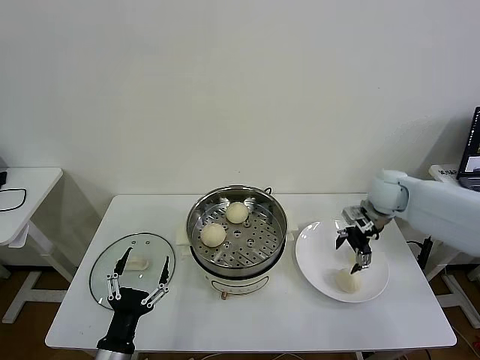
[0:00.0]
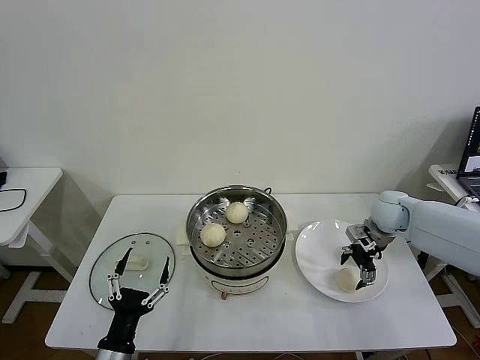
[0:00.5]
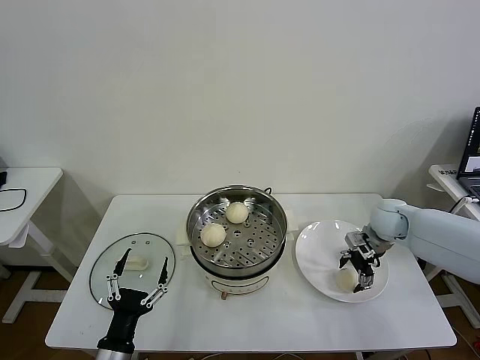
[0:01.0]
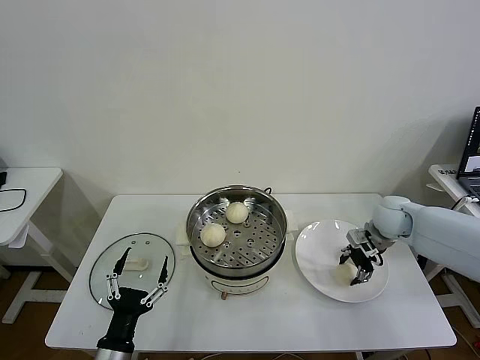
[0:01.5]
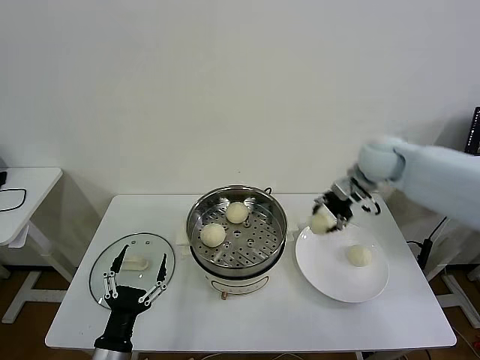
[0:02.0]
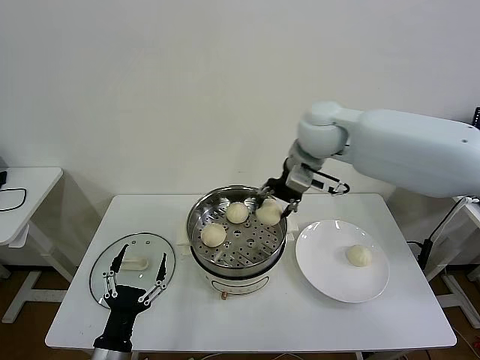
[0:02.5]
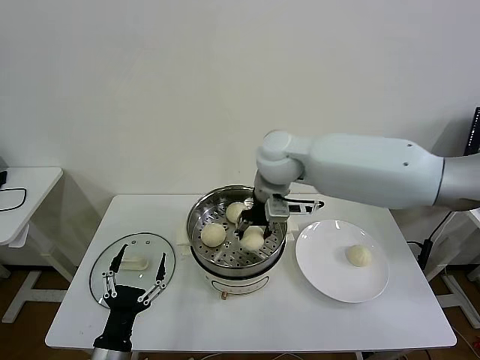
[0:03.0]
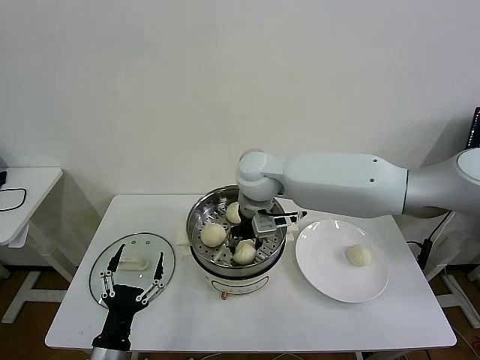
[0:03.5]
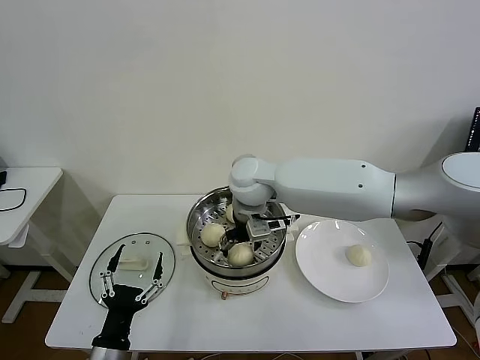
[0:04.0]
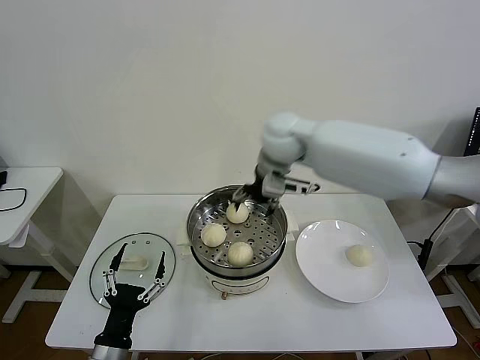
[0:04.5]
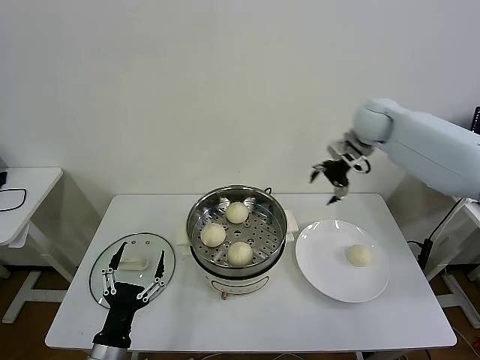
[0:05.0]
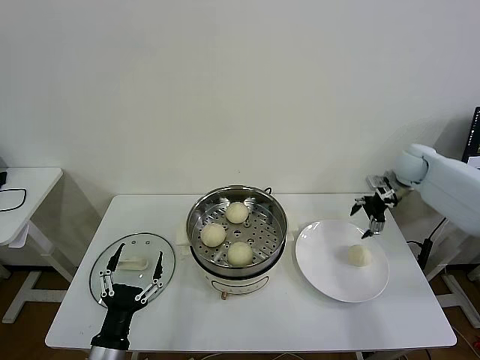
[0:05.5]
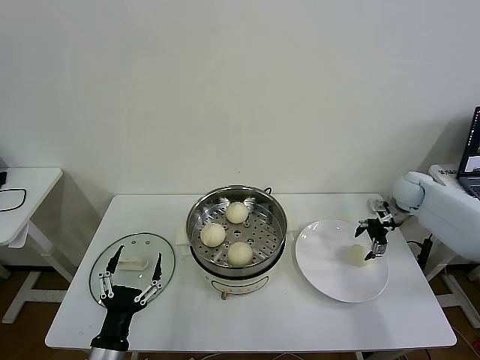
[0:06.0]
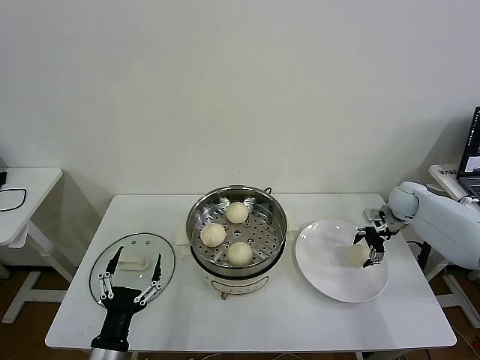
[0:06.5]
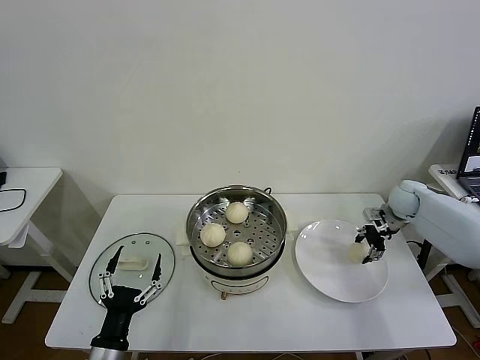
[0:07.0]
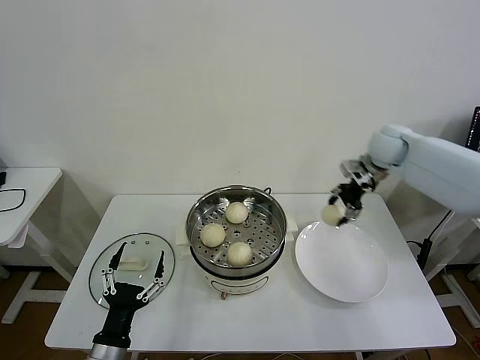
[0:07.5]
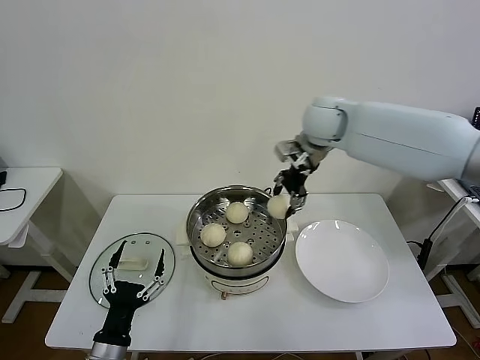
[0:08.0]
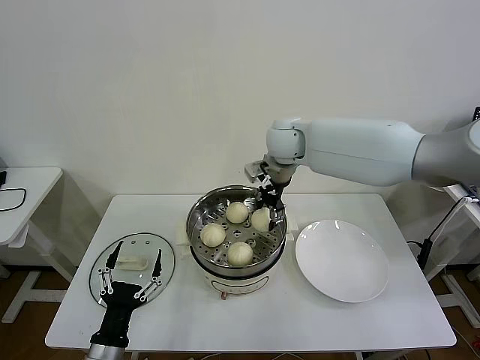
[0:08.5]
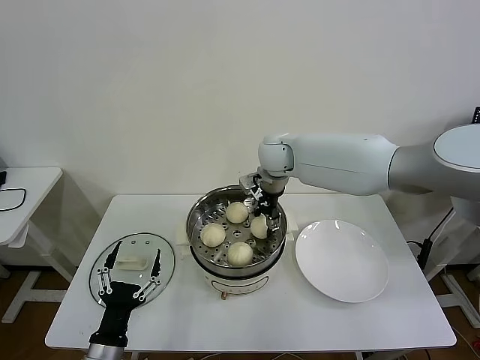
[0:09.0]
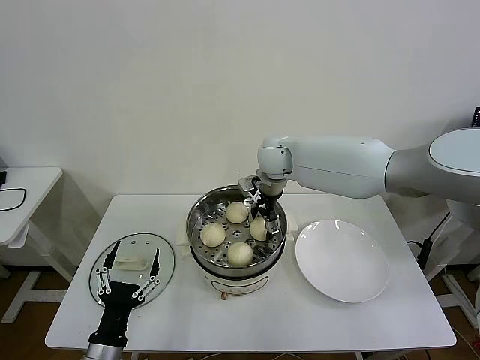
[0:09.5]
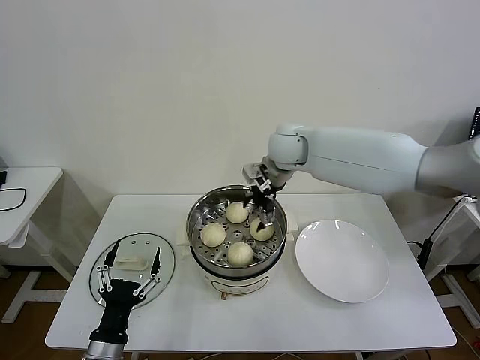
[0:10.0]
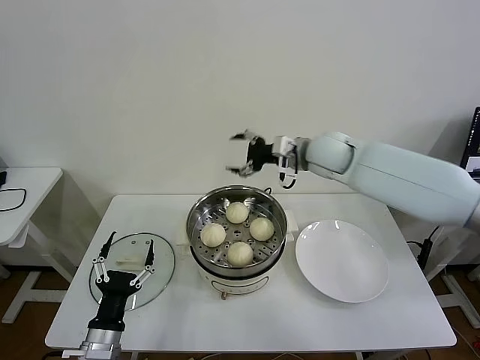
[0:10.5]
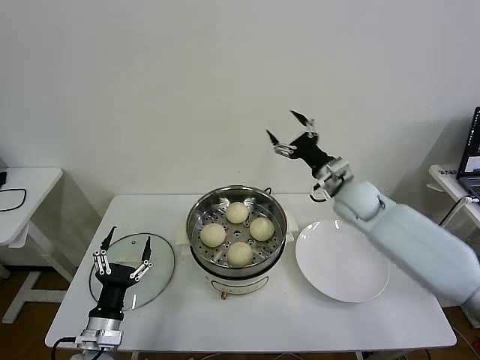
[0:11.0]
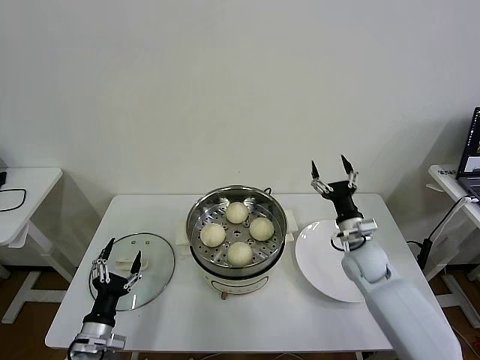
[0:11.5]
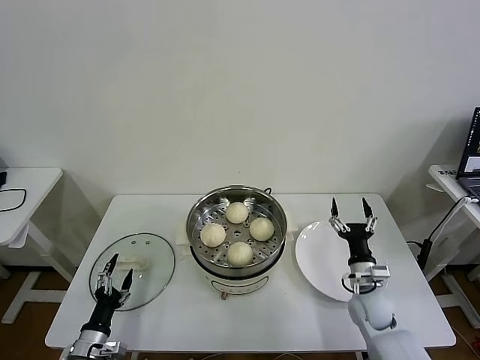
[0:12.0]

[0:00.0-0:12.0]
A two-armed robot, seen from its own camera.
Task of the whole recording: take steamed baozi put them in steamer then cover it.
Step, 0:00.0 to 0:01.5: Grasp the baozi in the plate with right gripper.
Step, 0:02.0 to 0:04.0: Place the baozi on the steamer with right gripper.
Step, 0:04.5 to 0:06.5: Grasp the baozi in the plate with right gripper.
Step, 0:07.0 to 0:09.5: Place the baozi on the steamer with right gripper.
0:00.0 to 0:02.0: The right gripper shifts about 15 cm upward and to the left, and closes its fingers.
0:02.0 to 0:04.0: The right gripper is displaced to the left by approximately 25 cm, and opens.
0:04.0 to 0:06.0: The right gripper moves to the right, some 40 cm.
0:06.0 to 0:08.0: The right gripper moves to the left and upward, about 35 cm, and closes its fingers.
0:08.0 to 0:10.0: The right gripper moves downward and to the left, approximately 10 cm, and opens its fingers.
0:10.0 to 0:12.0: The left gripper shifts approximately 15 cm downward and to the left; the right gripper travels downward, backward and to the right by some 40 cm.

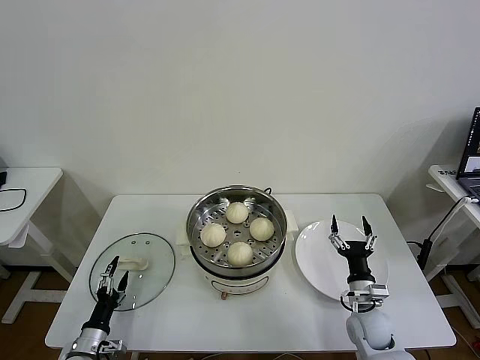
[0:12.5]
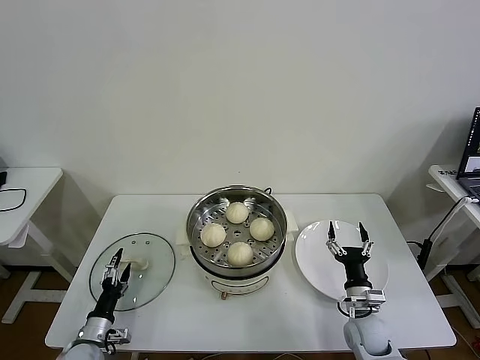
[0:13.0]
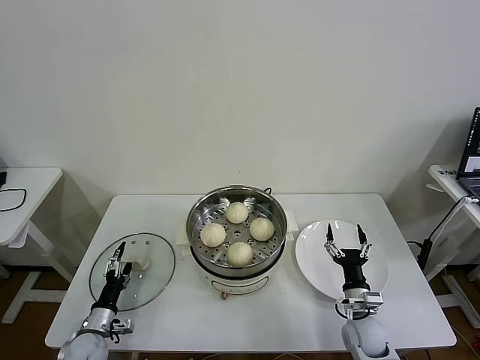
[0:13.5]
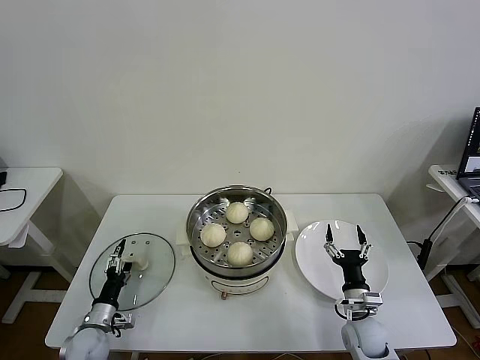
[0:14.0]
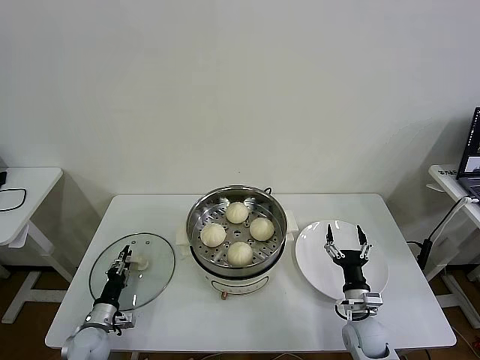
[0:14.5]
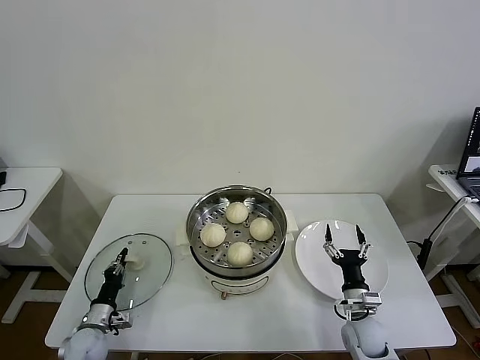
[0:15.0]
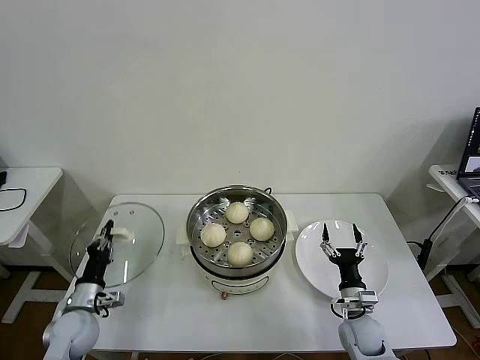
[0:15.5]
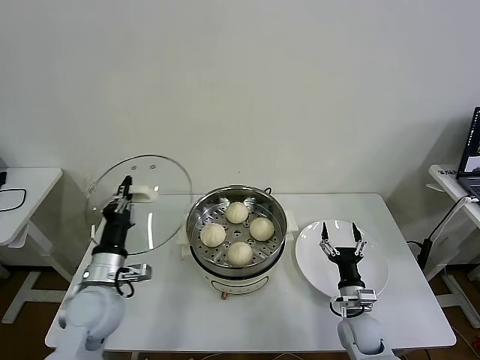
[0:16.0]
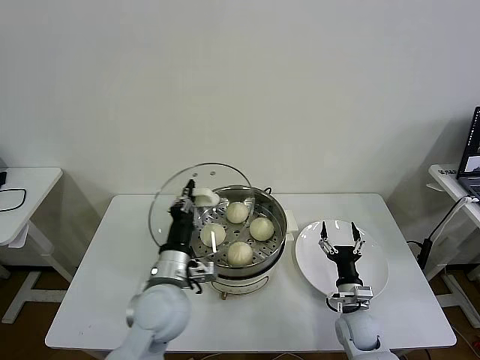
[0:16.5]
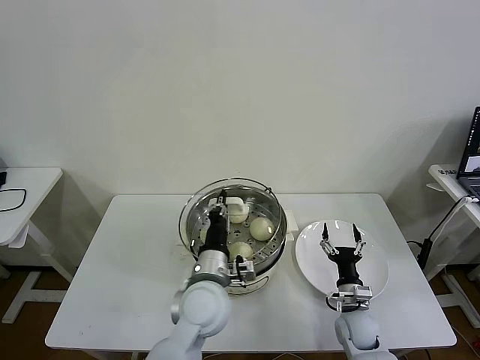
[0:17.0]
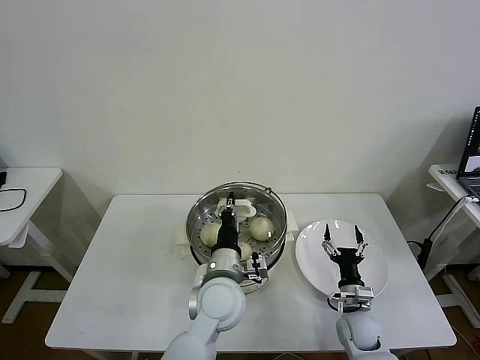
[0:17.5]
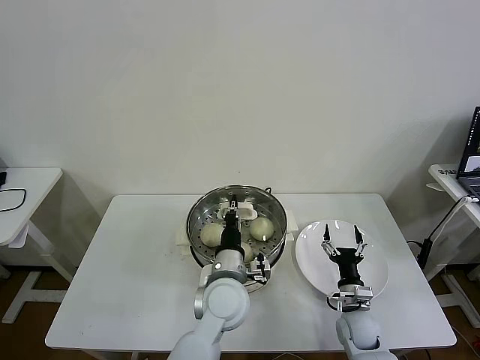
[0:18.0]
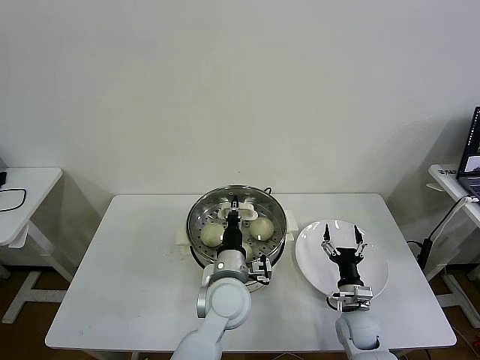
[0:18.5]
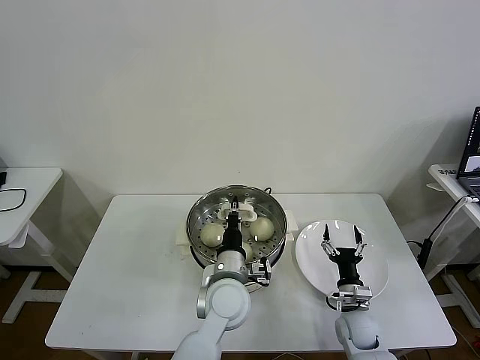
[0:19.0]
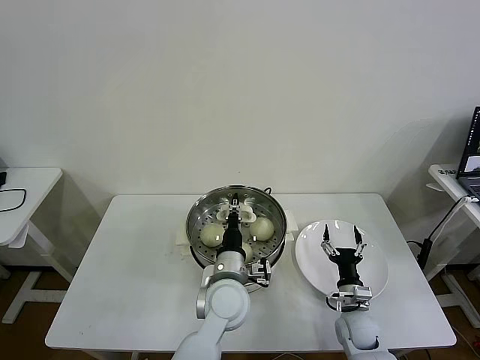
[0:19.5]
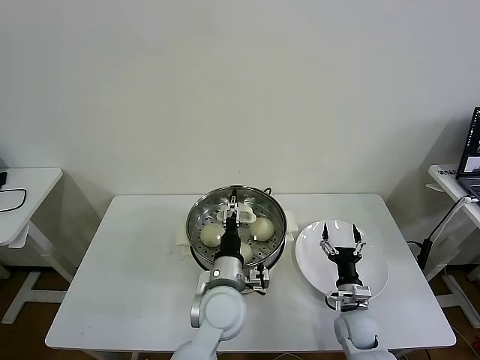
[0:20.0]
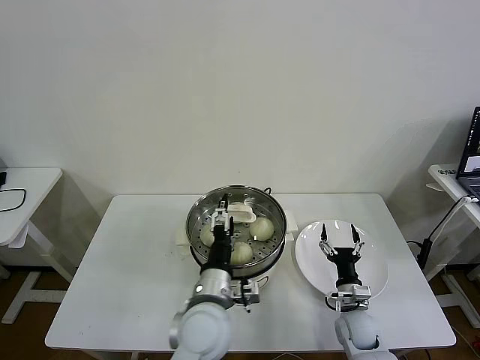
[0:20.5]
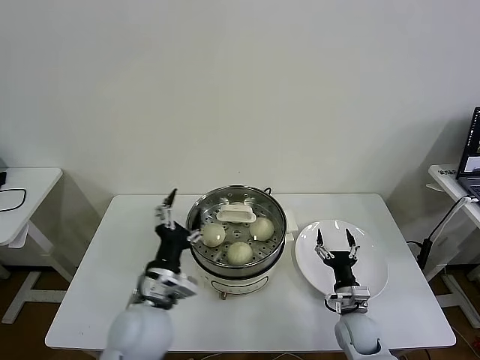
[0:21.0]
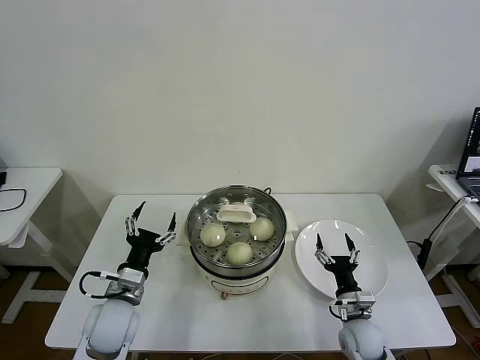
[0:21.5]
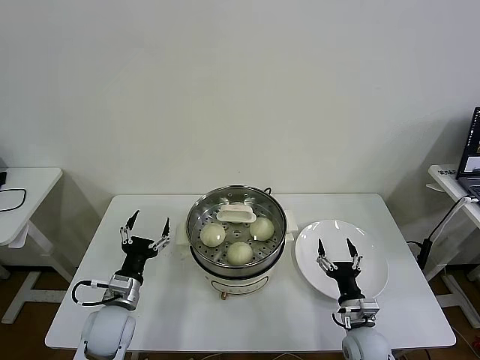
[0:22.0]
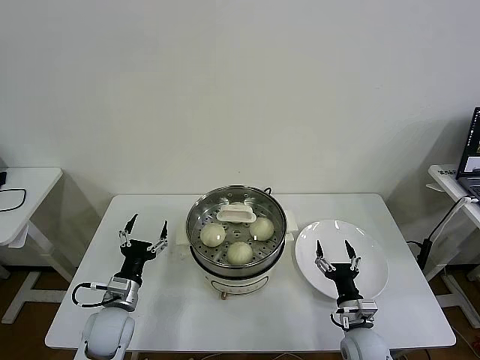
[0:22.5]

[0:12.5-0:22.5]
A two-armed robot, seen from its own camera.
Task of the whole recording: take steamed baozi put them in steamer then cover it.
Step, 0:12.5 to 0:15.0: Grasp the pot lid with left gripper.
Step, 0:15.5 to 0:19.5: Place the pot lid on the steamer with left gripper.
0:12.5 to 0:14.5: The left gripper goes roughly 5 cm forward, and closes.
0:14.5 to 0:16.5: The left gripper heads upward and to the right, covering approximately 35 cm, and closes its fingers.
0:16.5 to 0:18.5: The left gripper travels to the right by some 10 cm.
0:18.5 to 0:20.5: The left gripper is displaced backward by approximately 5 cm, and opens.
0:20.5 to 0:22.5: The right gripper changes place by about 5 cm, while the left gripper is displaced to the left and downward by about 25 cm.
